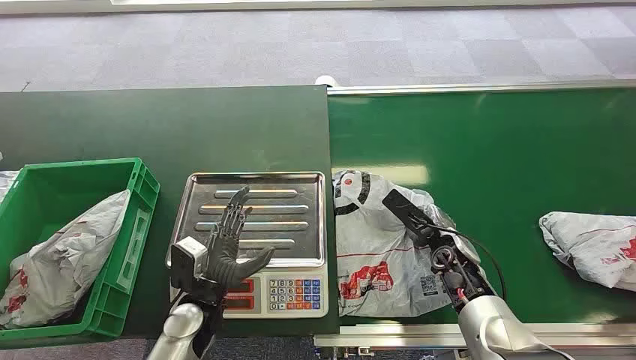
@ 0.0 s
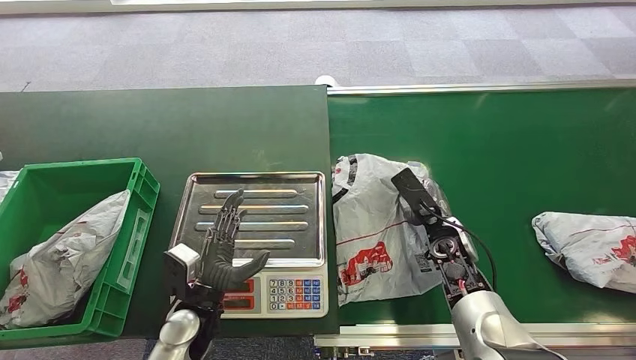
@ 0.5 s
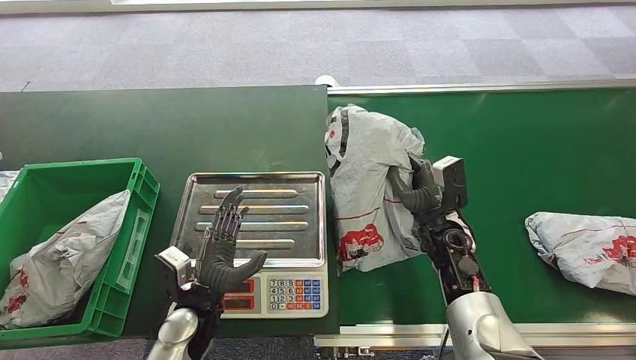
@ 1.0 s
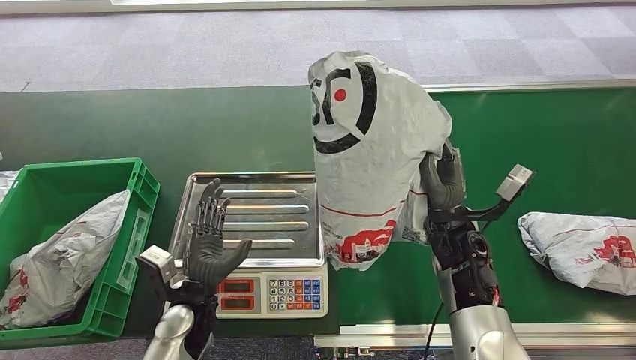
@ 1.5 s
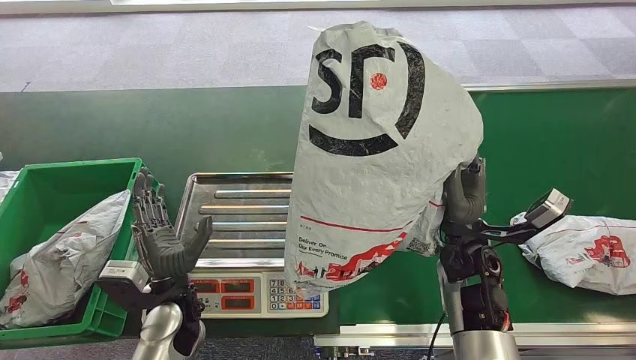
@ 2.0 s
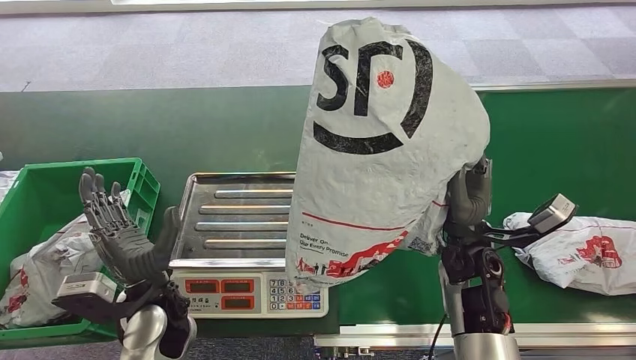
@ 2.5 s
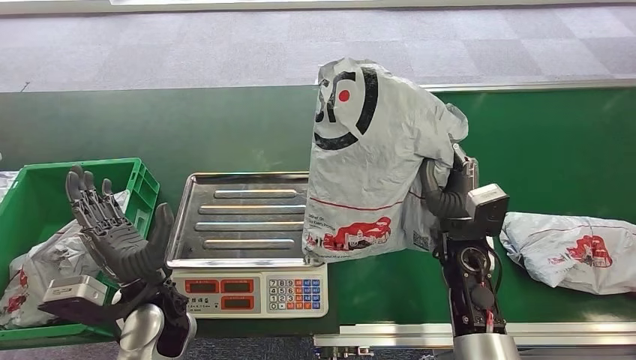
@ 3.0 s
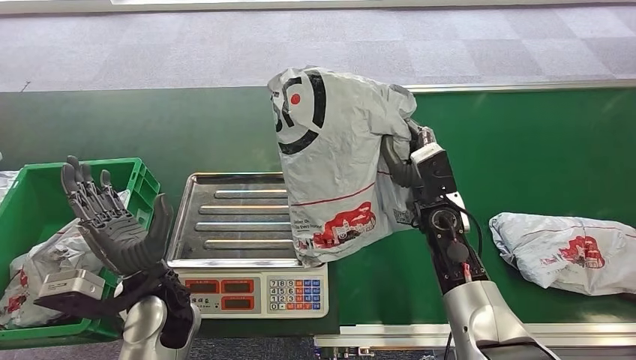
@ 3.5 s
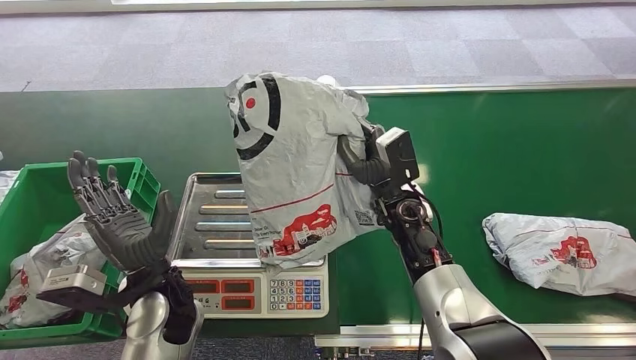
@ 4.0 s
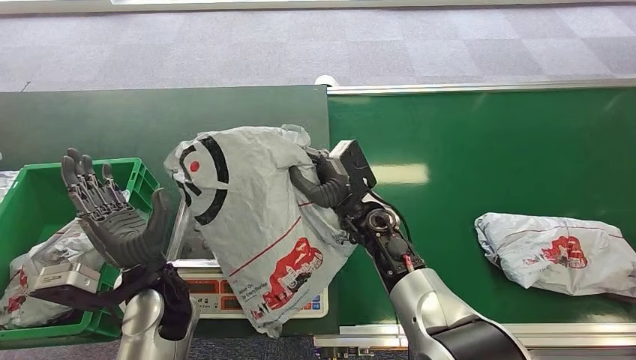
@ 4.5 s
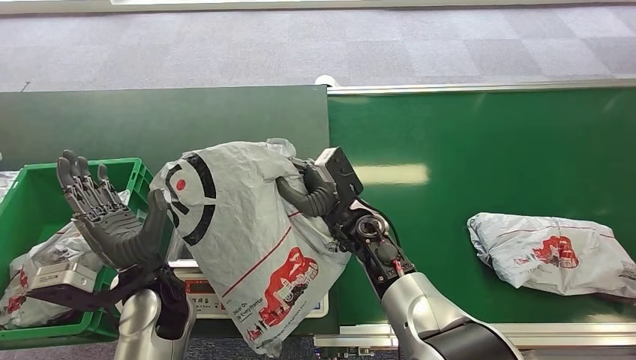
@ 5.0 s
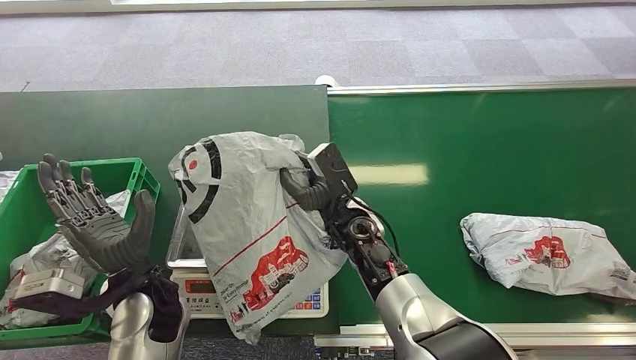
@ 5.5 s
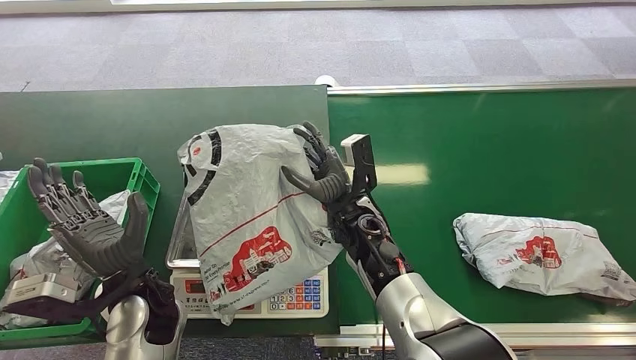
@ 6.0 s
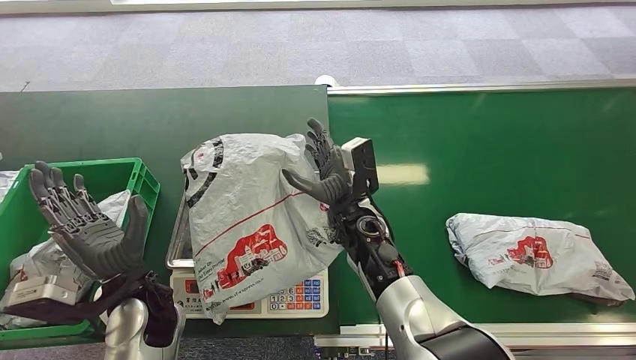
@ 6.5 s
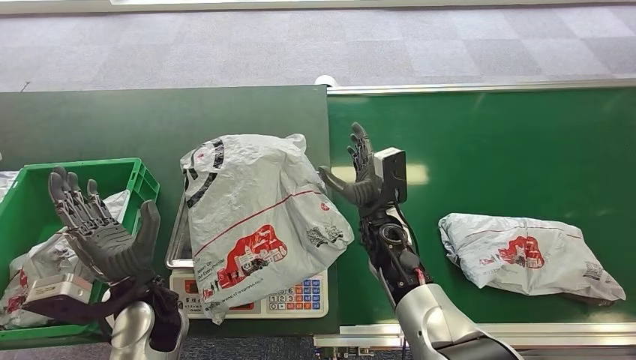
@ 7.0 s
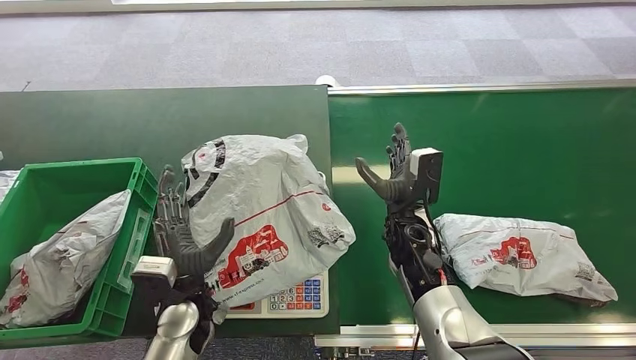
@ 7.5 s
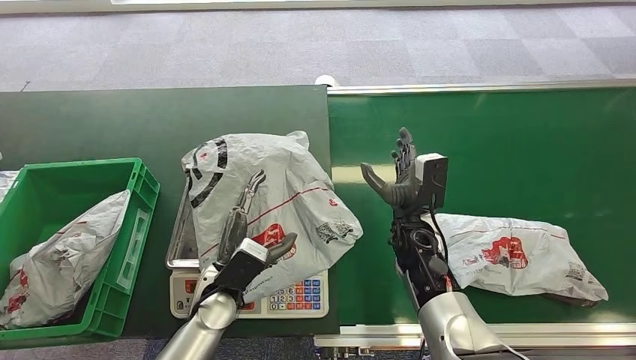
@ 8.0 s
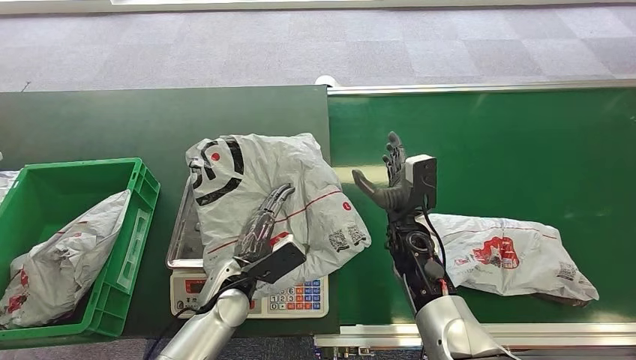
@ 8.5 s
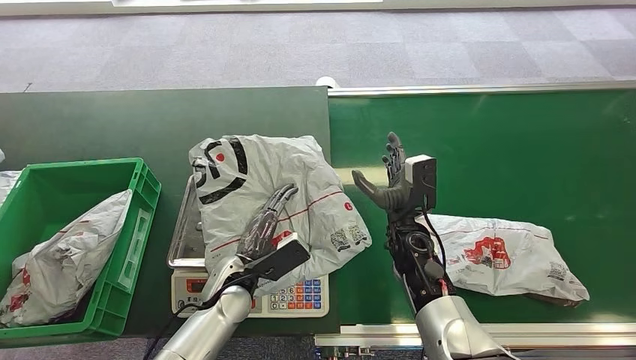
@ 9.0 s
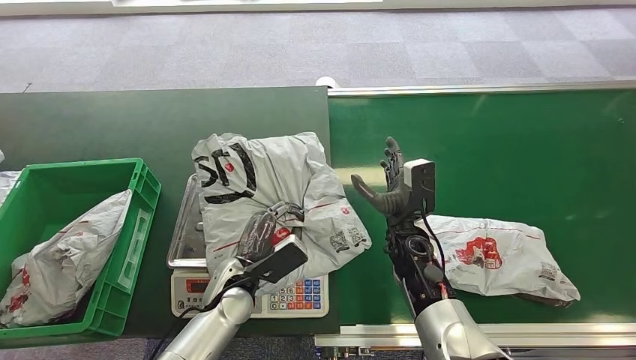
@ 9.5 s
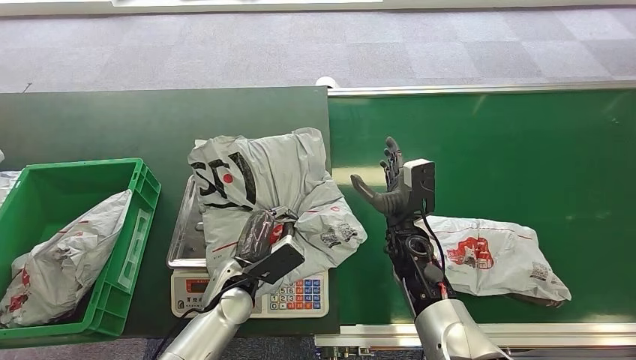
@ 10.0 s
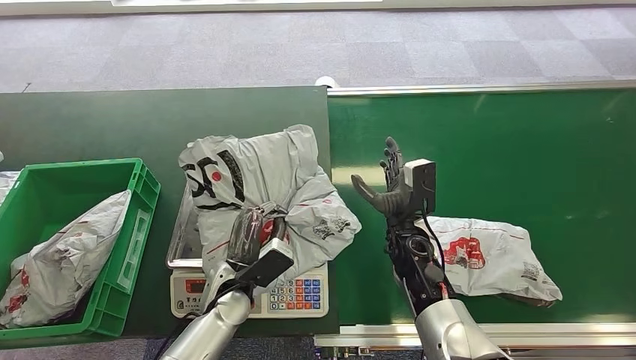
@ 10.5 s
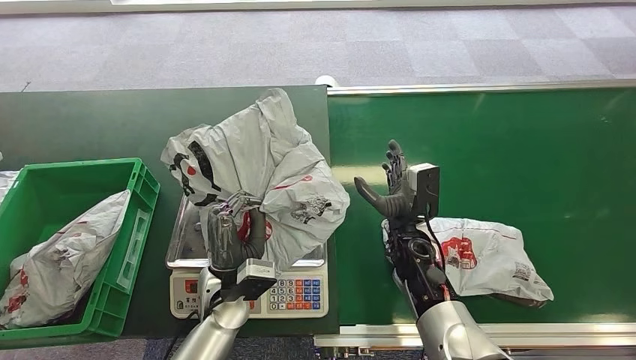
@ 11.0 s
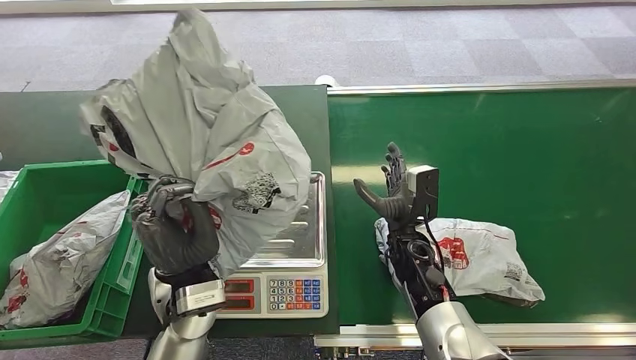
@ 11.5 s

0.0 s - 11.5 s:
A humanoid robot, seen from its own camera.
Step, 0.0 s - 1.5 s: Pick up the package from the conveyor belt.
Step, 3.5 s - 7.0 s: Place the package onto the inbound machine.

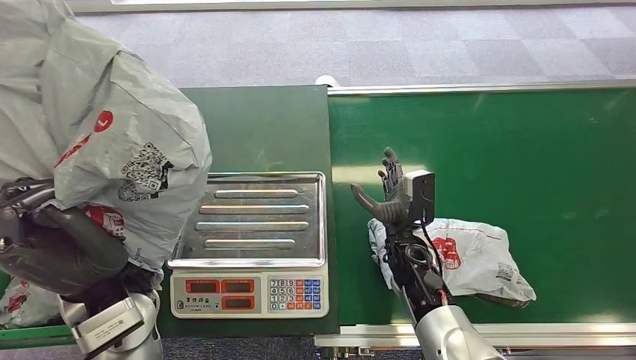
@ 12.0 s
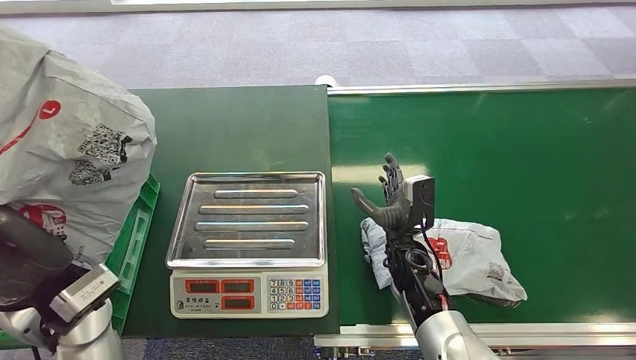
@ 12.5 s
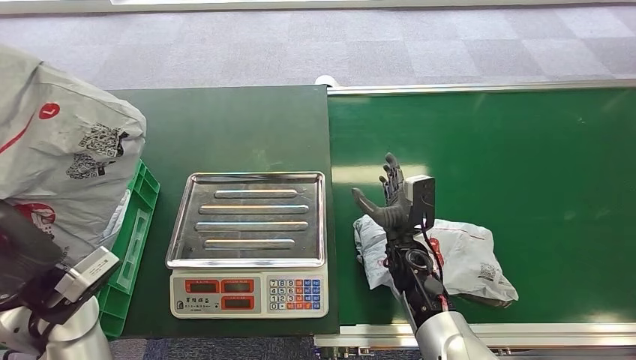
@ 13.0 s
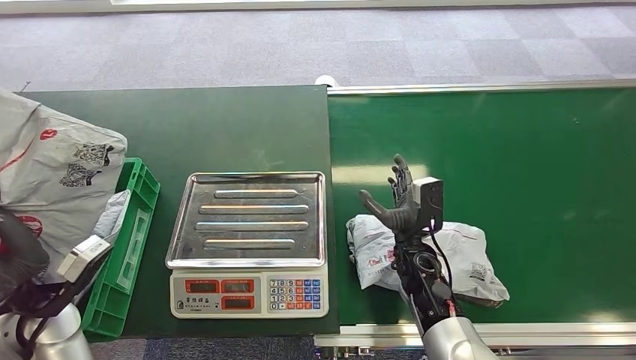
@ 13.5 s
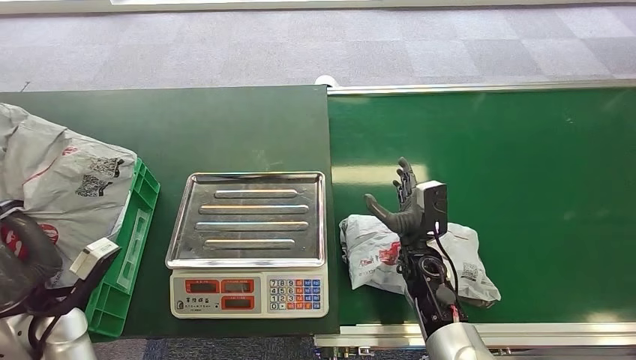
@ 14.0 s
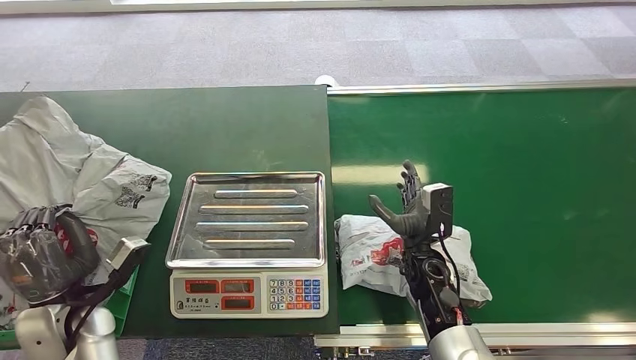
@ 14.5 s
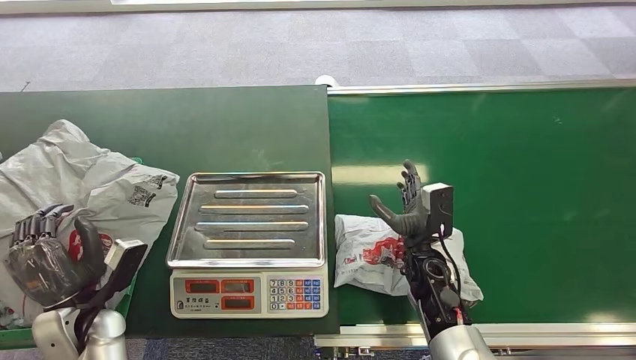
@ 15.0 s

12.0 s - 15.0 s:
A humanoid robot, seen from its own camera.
Step, 13.0 s - 15.0 s: Place the package into the parcel locker.
13.5 s - 15.0 s: The left hand shifts some 10 cm downward.
